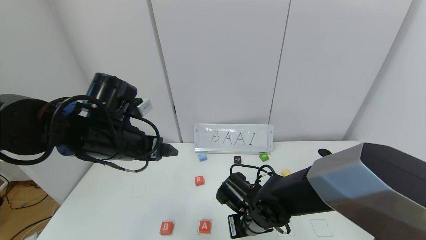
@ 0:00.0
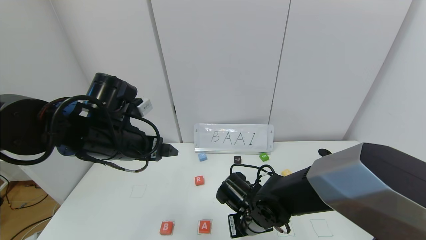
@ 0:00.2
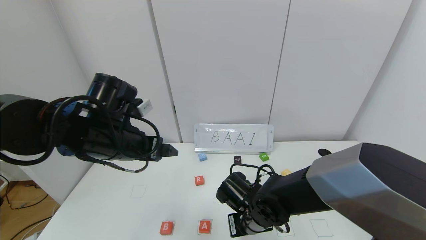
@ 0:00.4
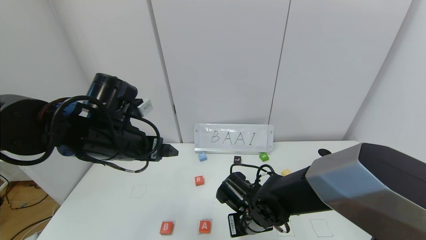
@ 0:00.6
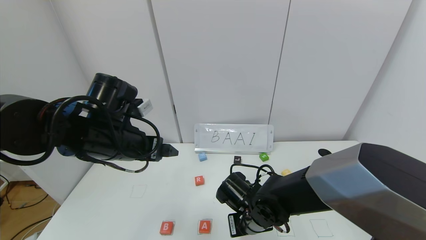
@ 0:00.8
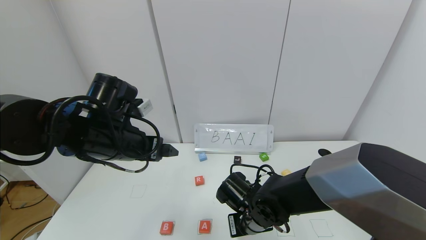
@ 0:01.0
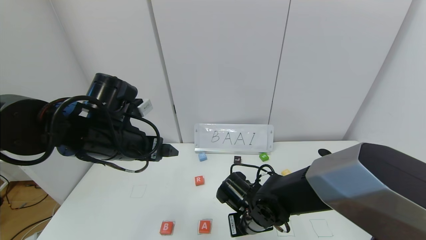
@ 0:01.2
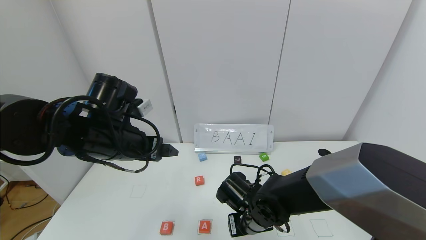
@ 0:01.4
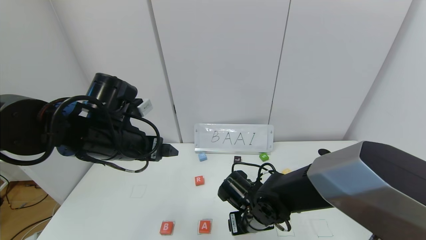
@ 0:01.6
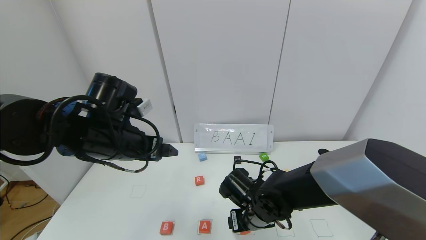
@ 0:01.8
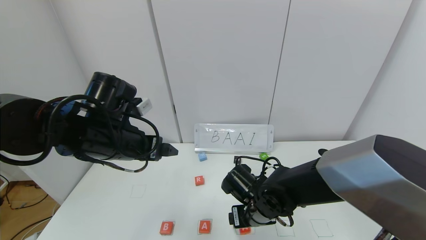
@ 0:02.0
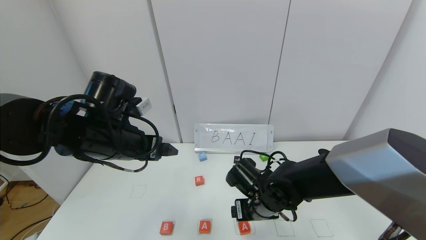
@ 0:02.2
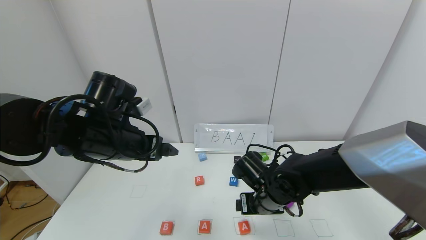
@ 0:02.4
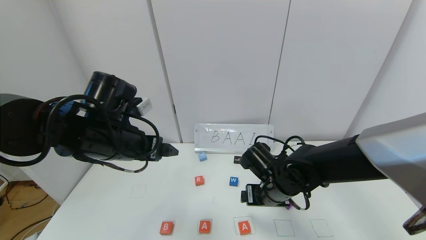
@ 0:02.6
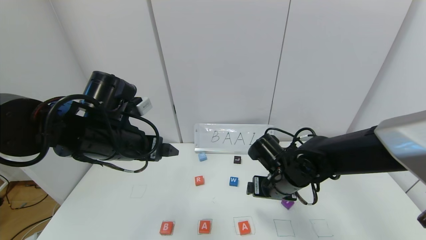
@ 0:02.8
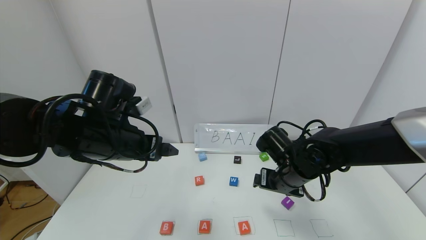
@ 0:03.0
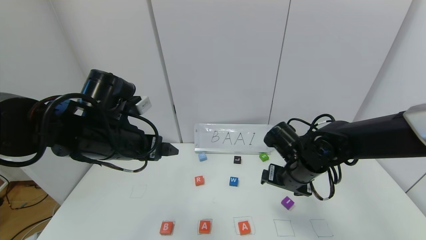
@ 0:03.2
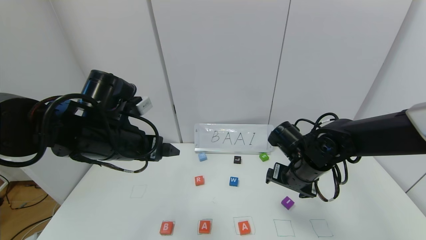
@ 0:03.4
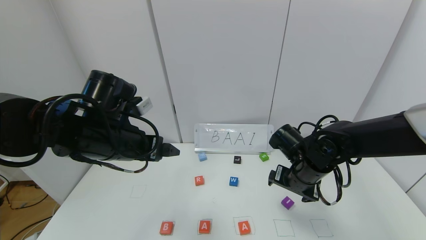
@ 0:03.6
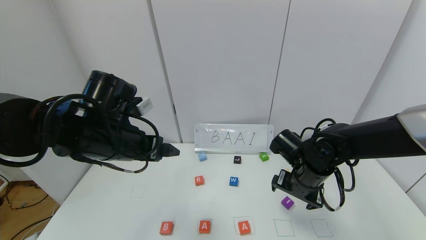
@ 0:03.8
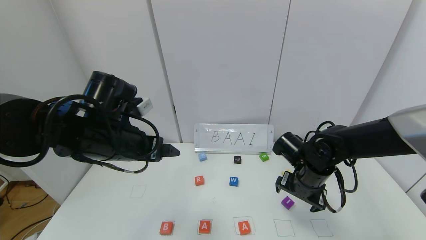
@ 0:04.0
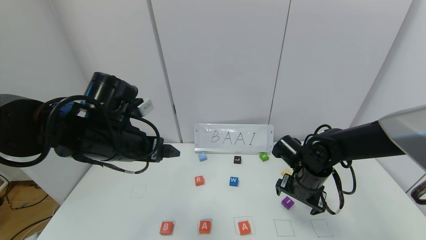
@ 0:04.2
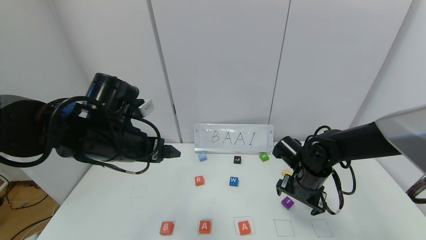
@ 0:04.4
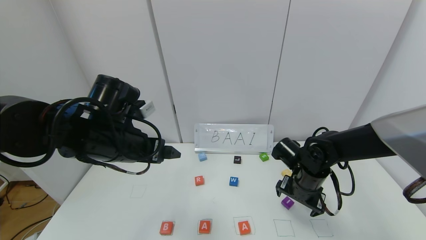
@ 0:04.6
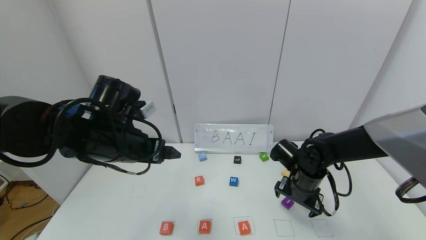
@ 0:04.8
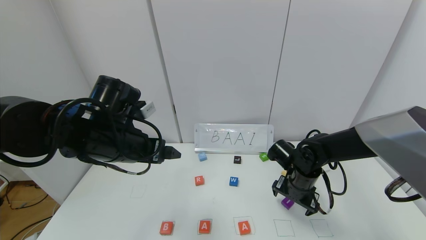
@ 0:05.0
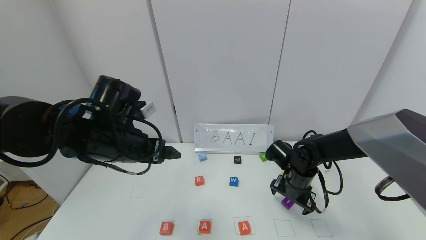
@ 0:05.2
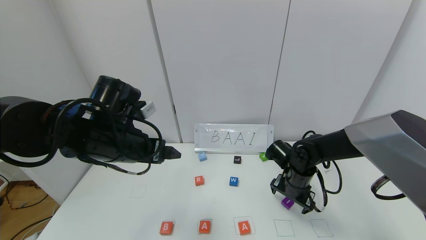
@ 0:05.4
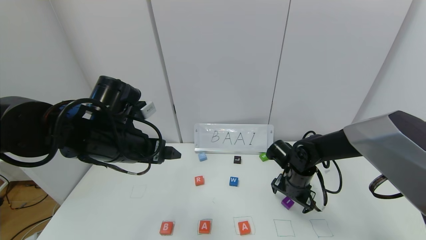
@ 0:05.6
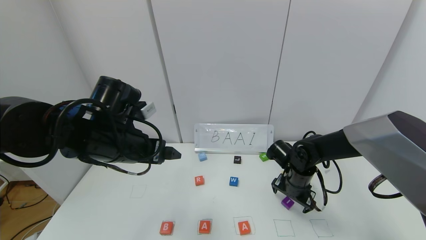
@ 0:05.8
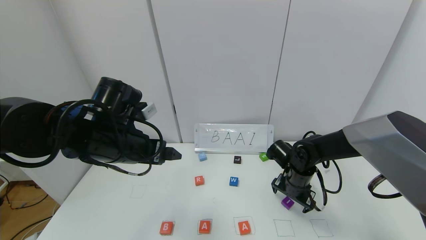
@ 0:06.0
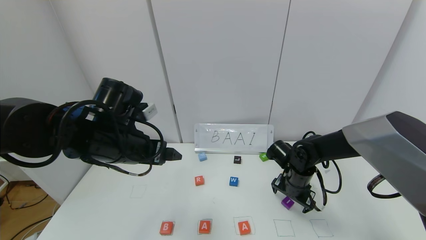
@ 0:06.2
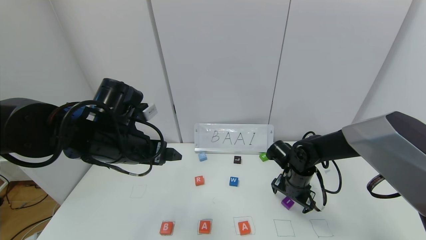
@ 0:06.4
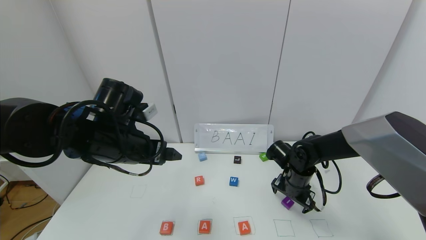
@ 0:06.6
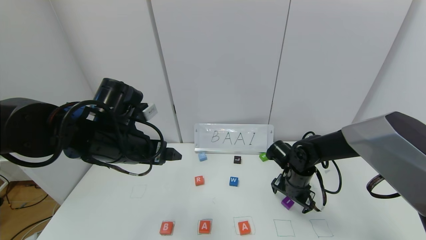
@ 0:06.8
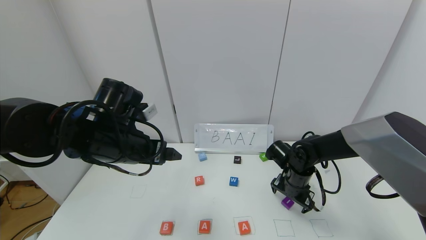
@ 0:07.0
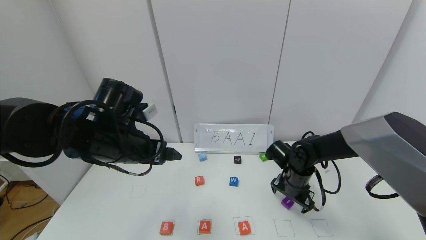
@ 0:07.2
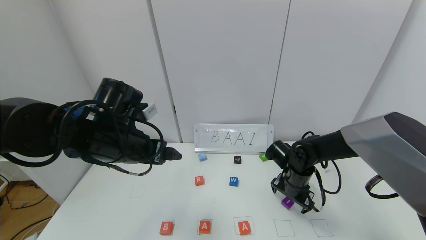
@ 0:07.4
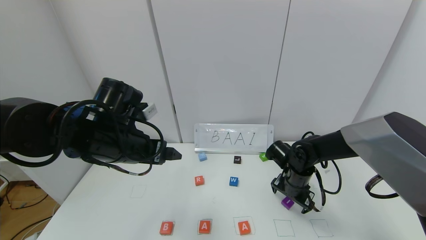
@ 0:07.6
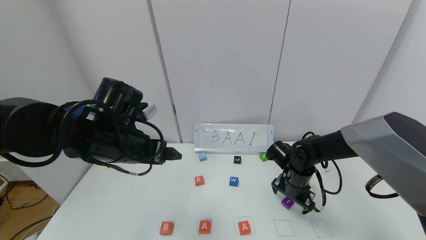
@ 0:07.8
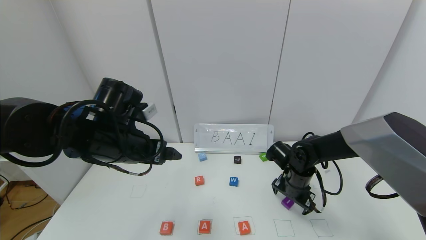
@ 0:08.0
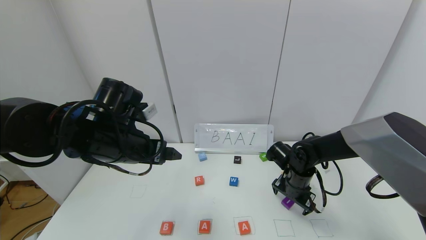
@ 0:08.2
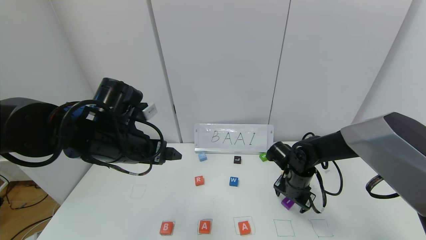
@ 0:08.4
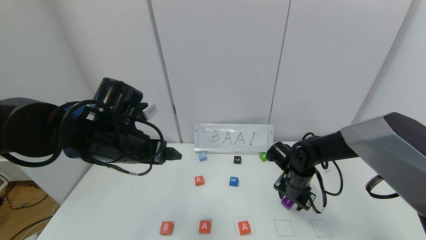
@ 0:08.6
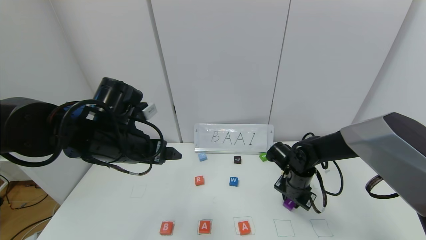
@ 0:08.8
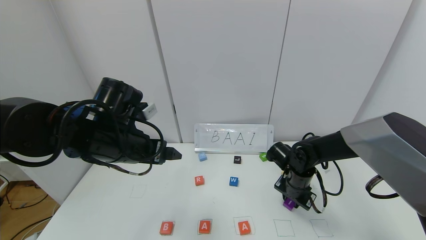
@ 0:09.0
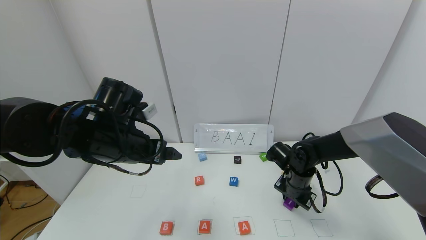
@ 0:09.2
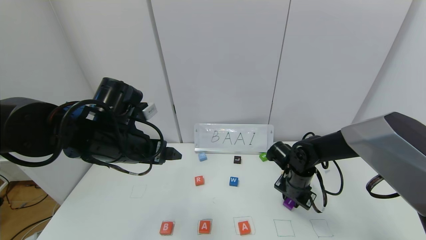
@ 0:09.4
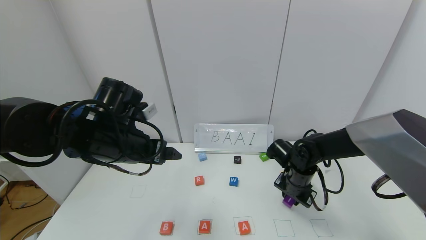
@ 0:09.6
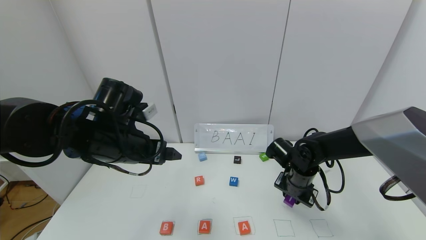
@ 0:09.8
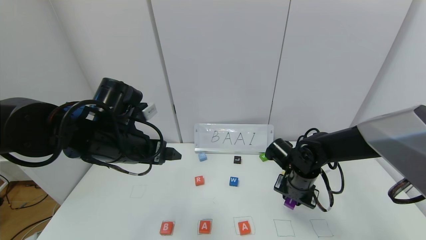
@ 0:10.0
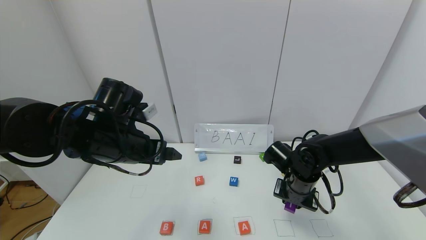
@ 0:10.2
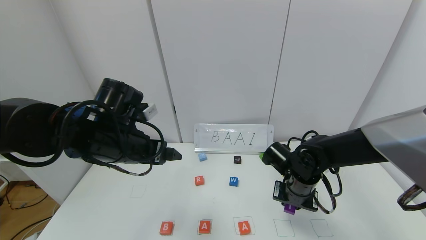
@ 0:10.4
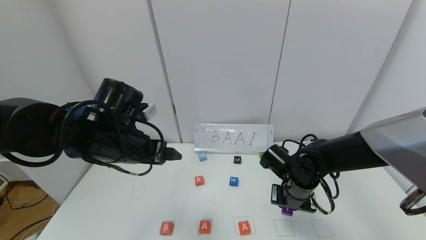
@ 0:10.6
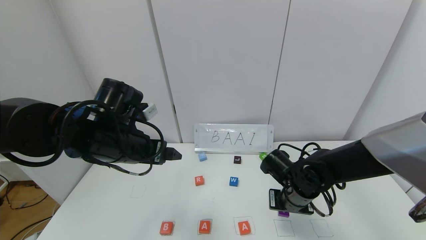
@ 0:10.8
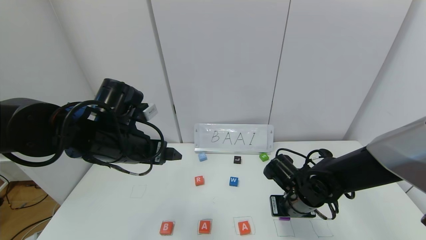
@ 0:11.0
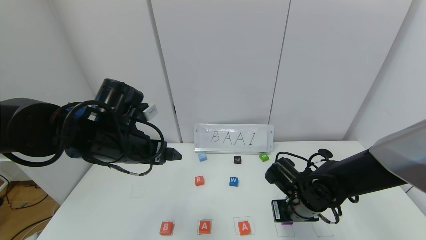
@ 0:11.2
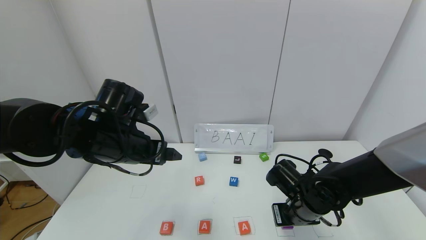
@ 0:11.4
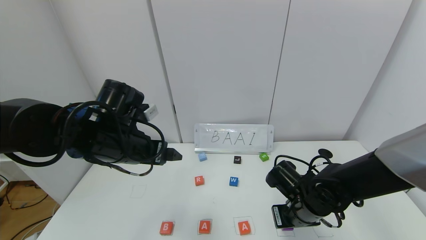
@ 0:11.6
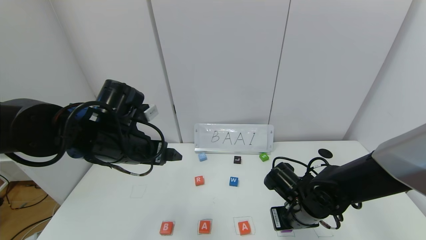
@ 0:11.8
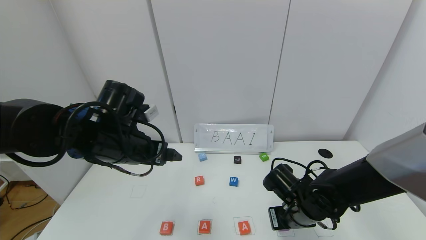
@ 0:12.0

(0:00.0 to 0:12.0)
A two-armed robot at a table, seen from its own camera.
Task of the whole recording: use the gripper to find blocks with the letters b, a, a, and i on the table and arrange them into BAAI, then find r and N and turn the arranged baai into brian.
Step, 0:00.0 - 0:02.2: Place the second block A in the third location.
0:00.0 - 0:01.6: The right gripper opens up.
0:01.6 - 0:03.0: The right gripper is displaced upward and to the right by roughly 10 cm.
0:03.0 - 0:04.4: The right gripper changes place by roughly 5 cm.
0:04.4 - 0:06.0: The grippers move only a little.
0:06.0 - 0:07.6: Neither gripper changes place.
0:07.6 - 0:09.0: The right gripper closes.
0:09.0 - 0:10.4: The right gripper moves roughly 5 cm.
0:10.4 - 0:12.0: The right gripper shifts by some 5 cm.

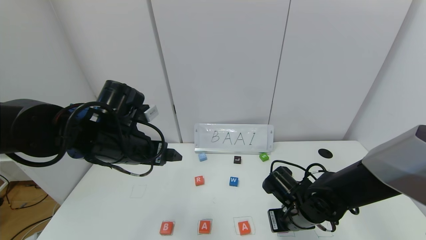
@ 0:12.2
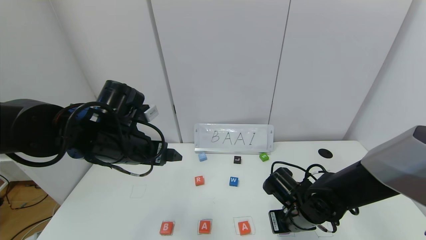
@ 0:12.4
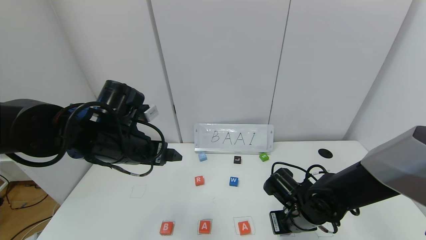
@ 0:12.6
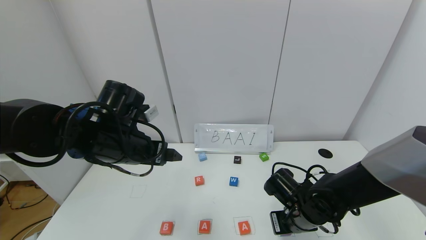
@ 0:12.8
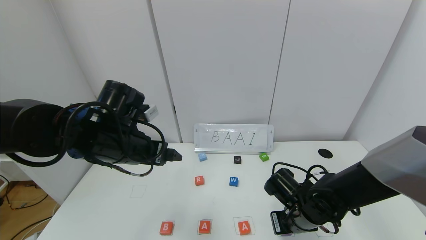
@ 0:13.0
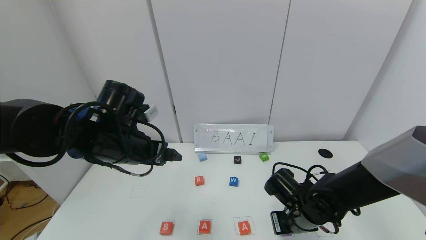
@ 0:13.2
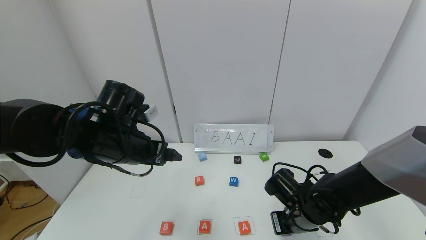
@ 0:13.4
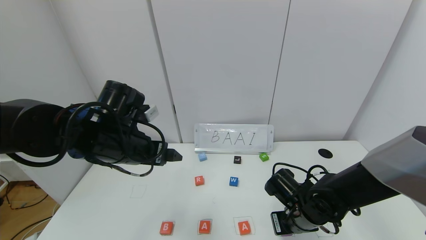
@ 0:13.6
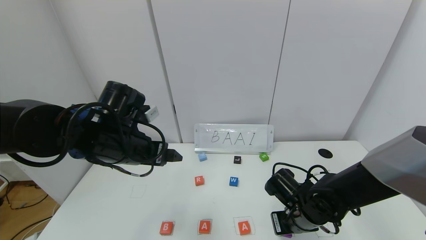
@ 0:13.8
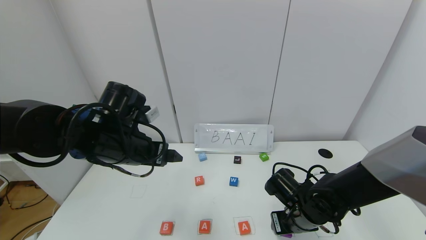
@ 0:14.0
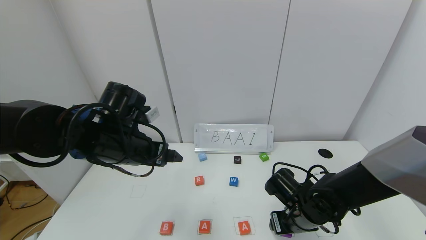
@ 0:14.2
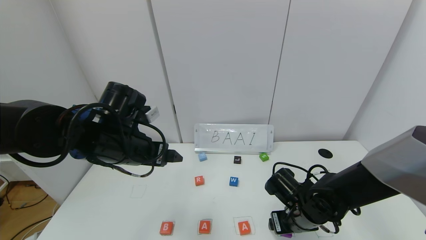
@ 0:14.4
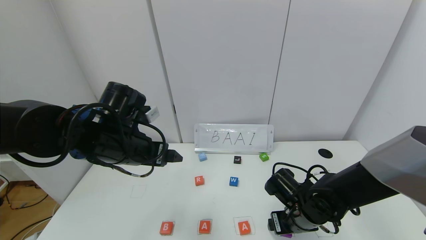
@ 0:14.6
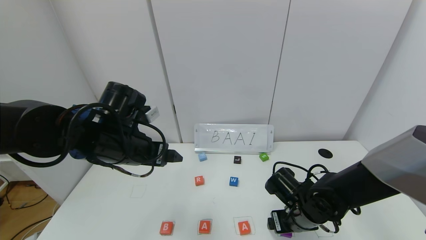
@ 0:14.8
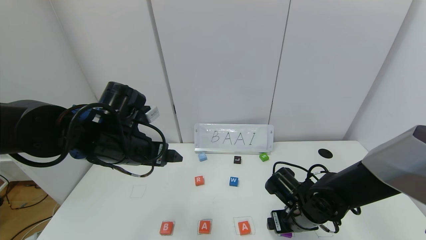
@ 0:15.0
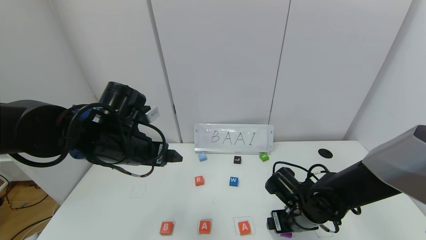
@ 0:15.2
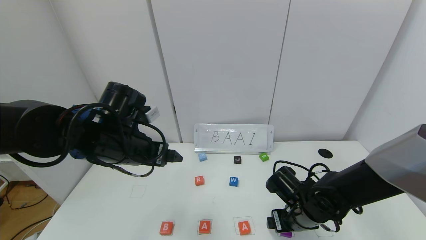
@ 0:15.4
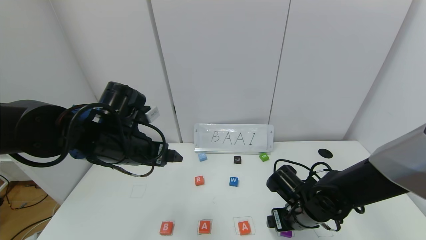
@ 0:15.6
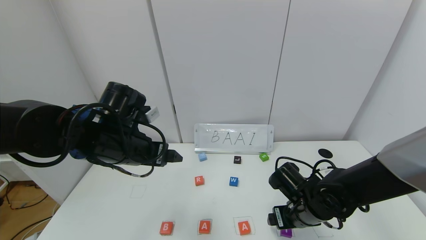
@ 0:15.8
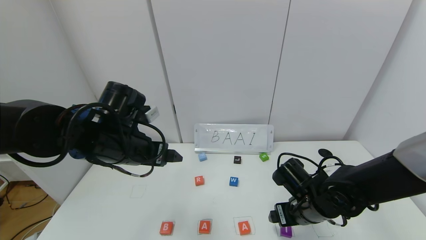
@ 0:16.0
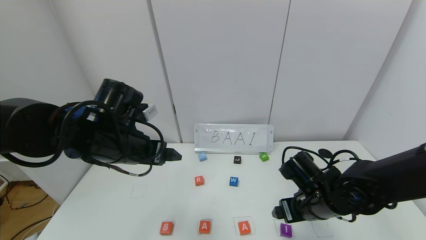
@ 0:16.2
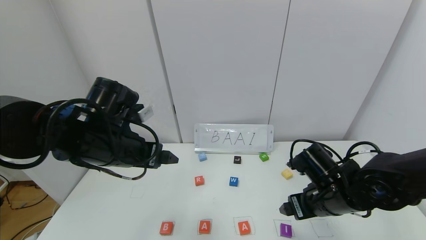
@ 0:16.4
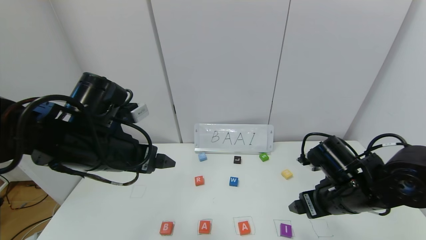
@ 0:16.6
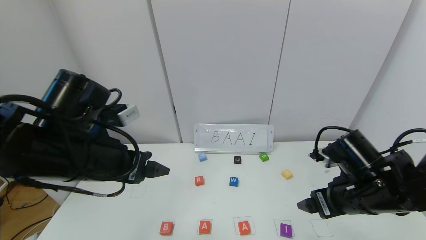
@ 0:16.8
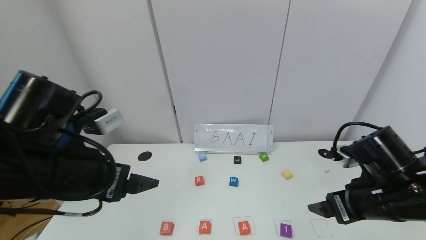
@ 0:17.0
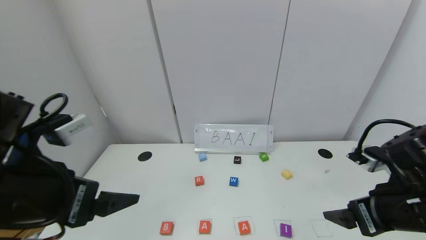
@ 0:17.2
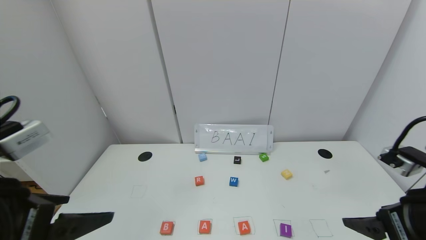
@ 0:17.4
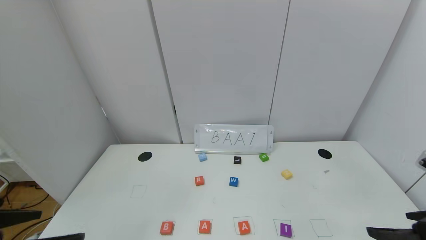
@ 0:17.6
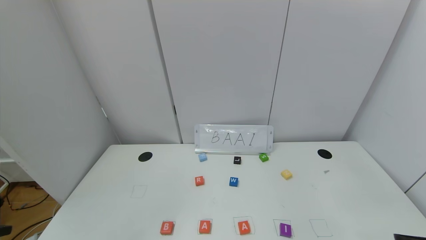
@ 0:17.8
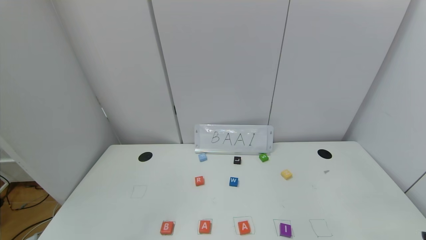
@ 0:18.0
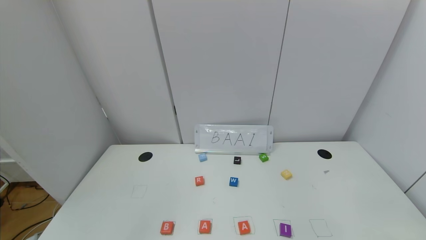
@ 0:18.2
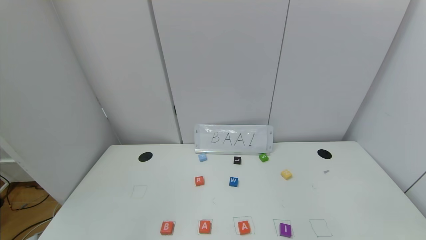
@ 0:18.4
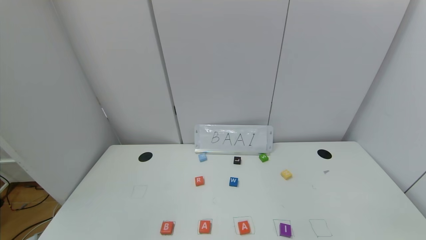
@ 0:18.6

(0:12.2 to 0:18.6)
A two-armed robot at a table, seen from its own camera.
Task of the whole recording: use the gripper to find blocks with the letters b, a, a, and i on the table and arrange them into BAAI, then find r and N and turn the arranged baai into brian.
Step, 0:12.2 - 0:14.4: Place the block I in the fourth location.
0:12.2 - 0:13.8: The right gripper opens.
0:13.8 - 0:15.4: The right gripper opens.
0:15.4 - 0:17.0: The right gripper moves upward, to the right and backward, roughly 20 cm. Meanwhile the left gripper shifts some 10 cm backward.
0:17.0 - 0:18.6: The left gripper heads backward, covering some 25 cm. Meanwhile the right gripper travels backward and to the right by approximately 25 cm.
